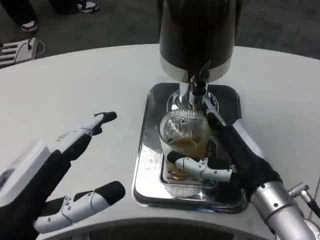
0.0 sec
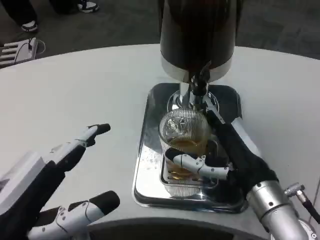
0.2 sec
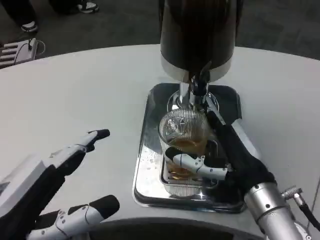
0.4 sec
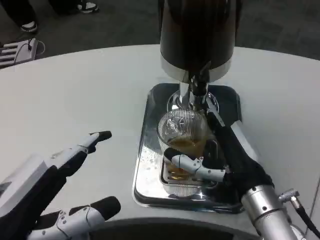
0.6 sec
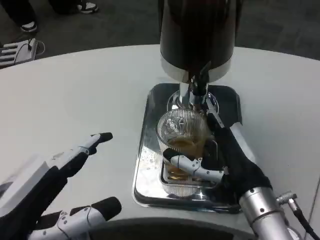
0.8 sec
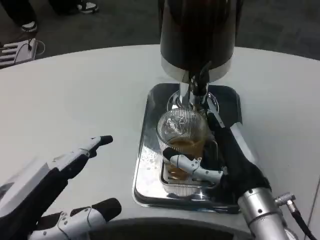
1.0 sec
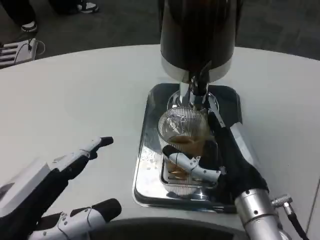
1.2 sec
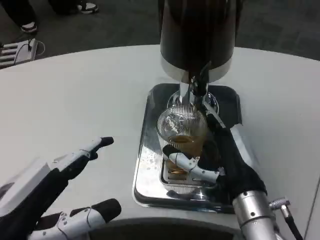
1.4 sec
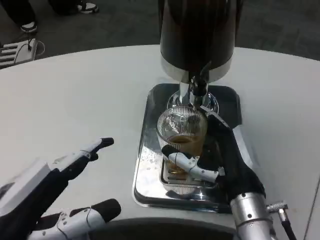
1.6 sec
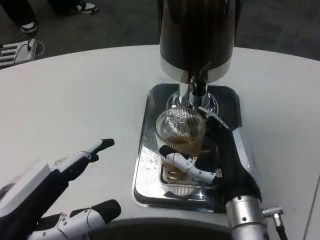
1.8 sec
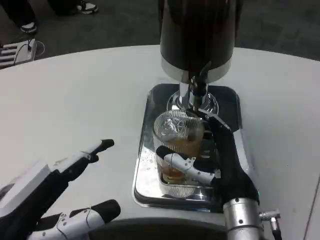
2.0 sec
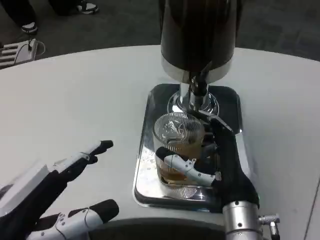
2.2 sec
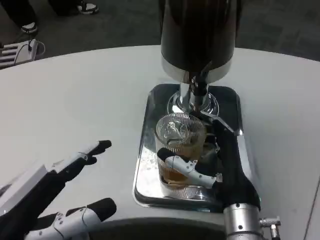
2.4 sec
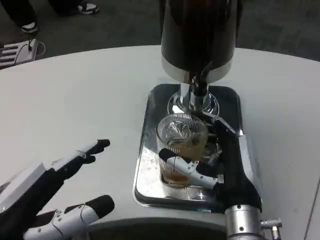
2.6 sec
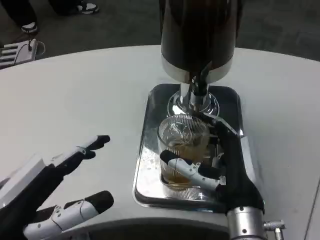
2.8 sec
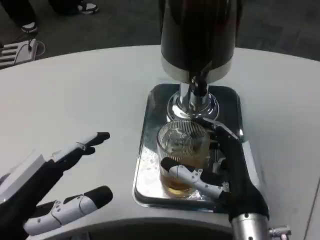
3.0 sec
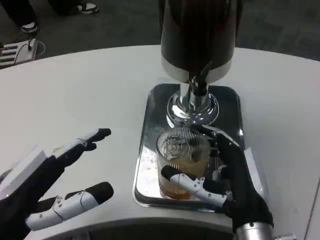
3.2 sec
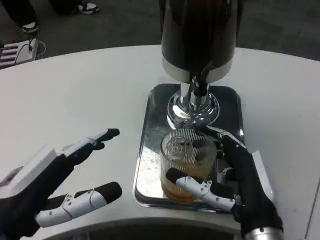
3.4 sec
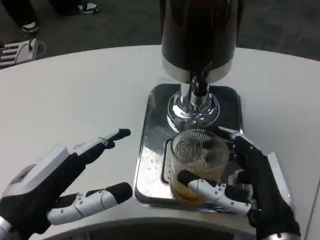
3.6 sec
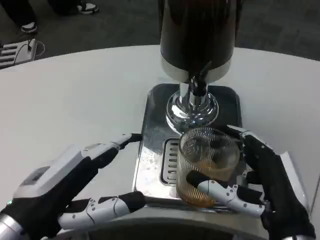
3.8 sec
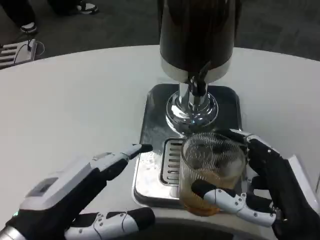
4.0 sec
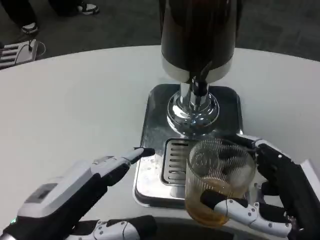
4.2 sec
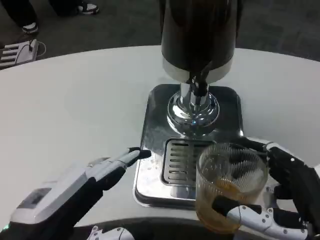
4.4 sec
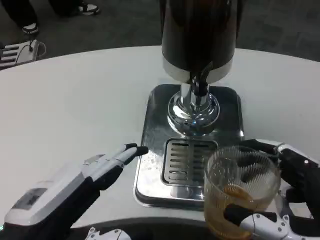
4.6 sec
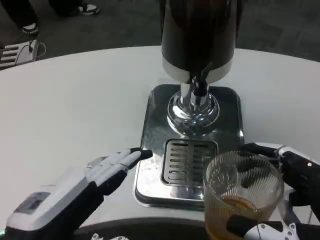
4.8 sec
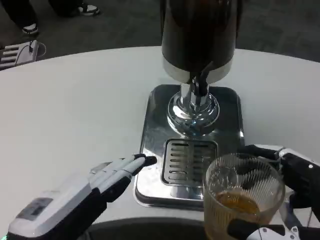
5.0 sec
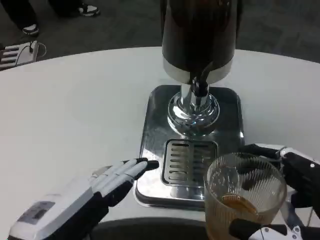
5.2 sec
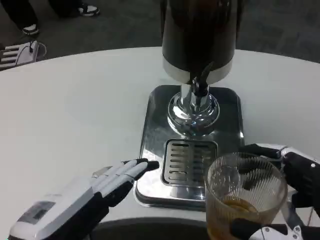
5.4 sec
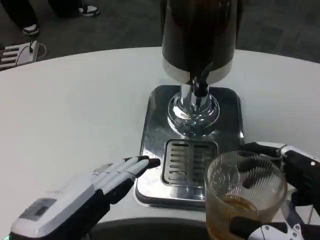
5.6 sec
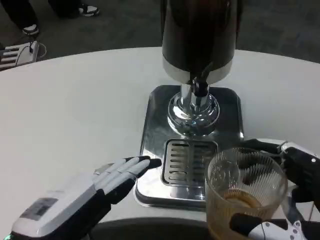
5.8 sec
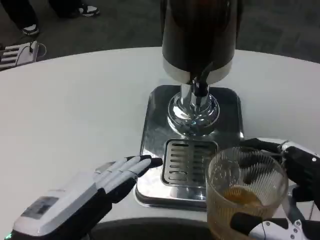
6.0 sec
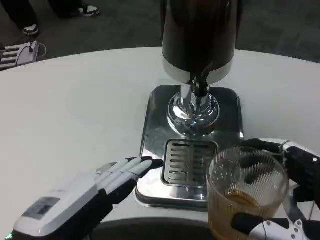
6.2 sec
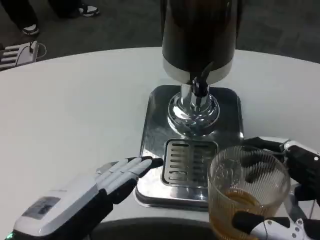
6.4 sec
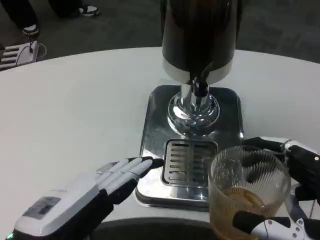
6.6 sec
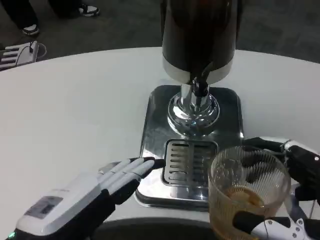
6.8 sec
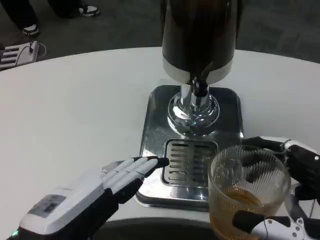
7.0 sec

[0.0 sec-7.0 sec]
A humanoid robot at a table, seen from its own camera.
Task of the whole recording: Grasp the cup under the faucet to collect the drink, then remove the cup.
0.0 sec to 1.4 sec: The hands stay close to where they were, moving slightly.
1.4 sec to 2.8 sec: The hands make only small movements.
2.8 sec to 4.2 sec: The right hand moves backward and to the right, approximately 10 cm.
4.2 sec to 5.6 sec: The right hand ends up roughly 5 cm from where it was.
5.6 sec to 7.0 sec: The two hands keep their place.

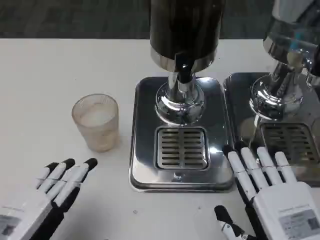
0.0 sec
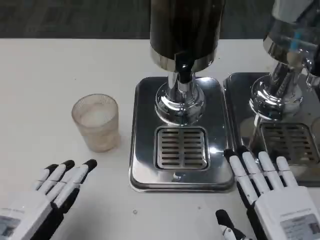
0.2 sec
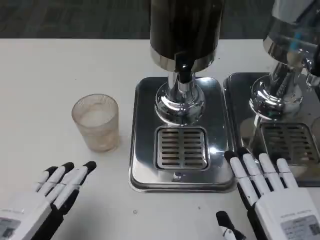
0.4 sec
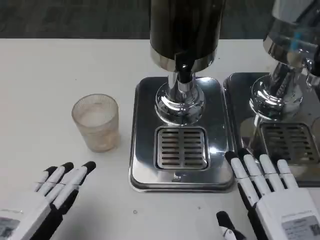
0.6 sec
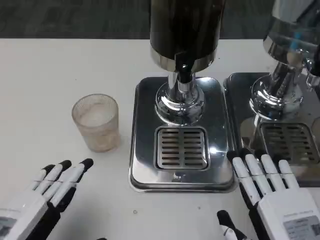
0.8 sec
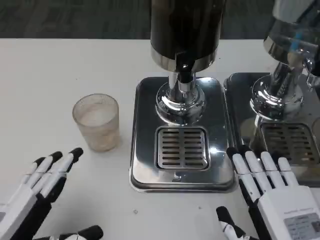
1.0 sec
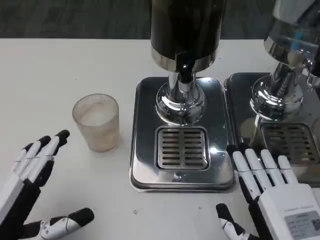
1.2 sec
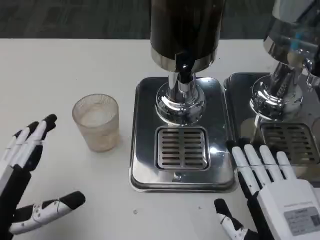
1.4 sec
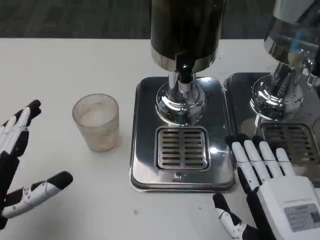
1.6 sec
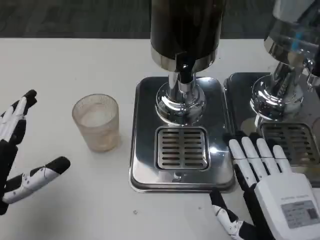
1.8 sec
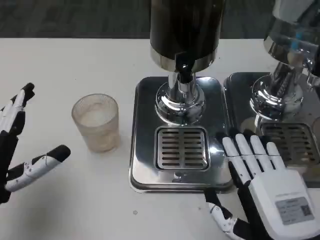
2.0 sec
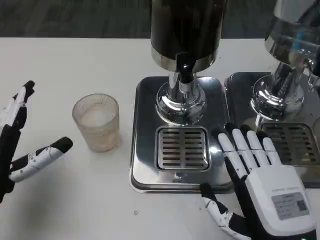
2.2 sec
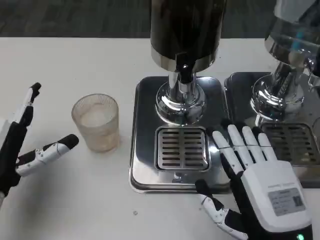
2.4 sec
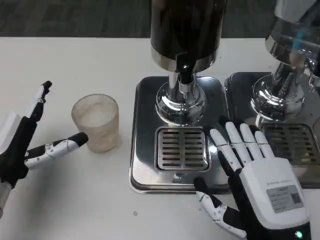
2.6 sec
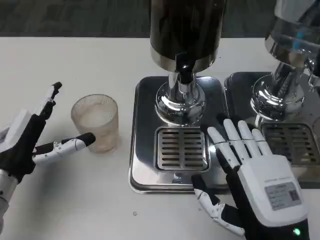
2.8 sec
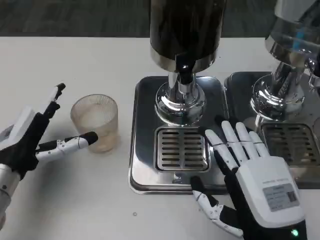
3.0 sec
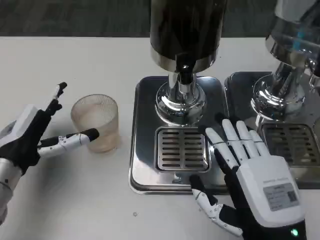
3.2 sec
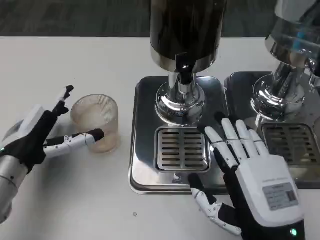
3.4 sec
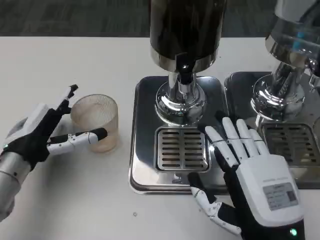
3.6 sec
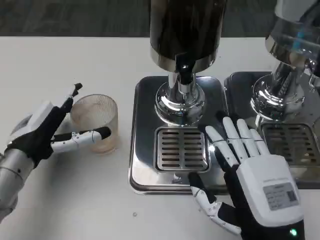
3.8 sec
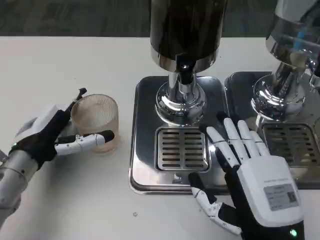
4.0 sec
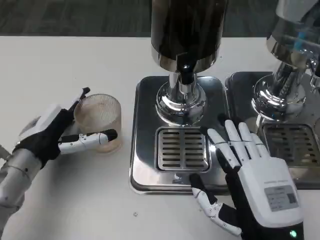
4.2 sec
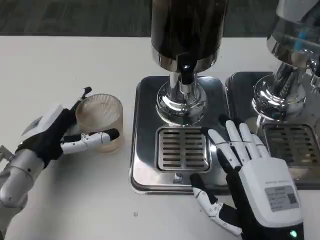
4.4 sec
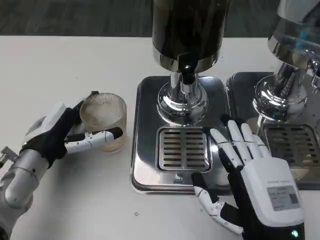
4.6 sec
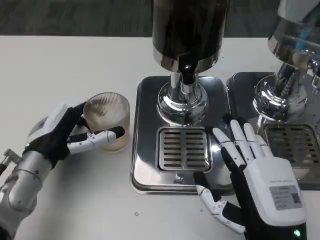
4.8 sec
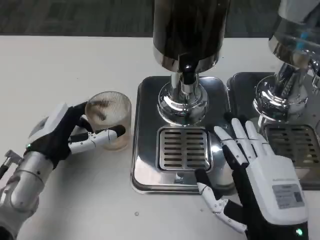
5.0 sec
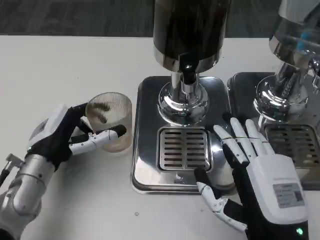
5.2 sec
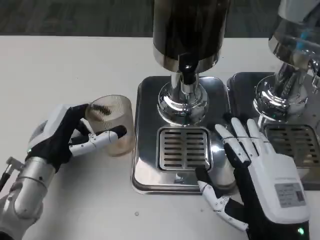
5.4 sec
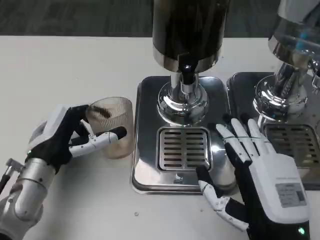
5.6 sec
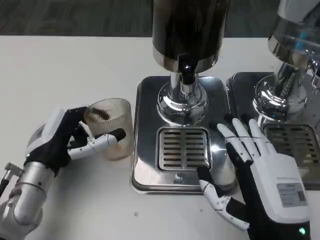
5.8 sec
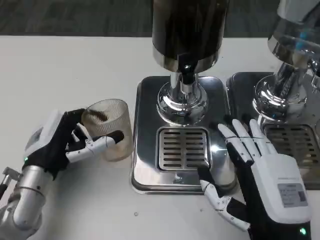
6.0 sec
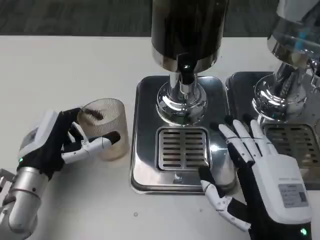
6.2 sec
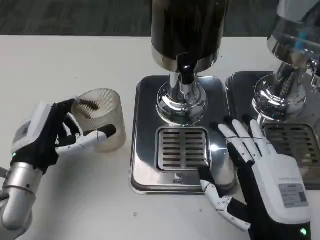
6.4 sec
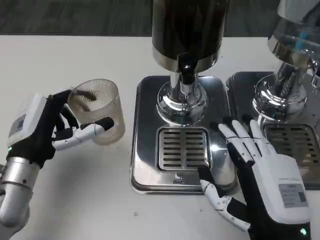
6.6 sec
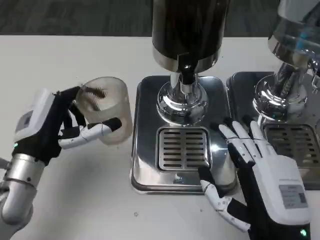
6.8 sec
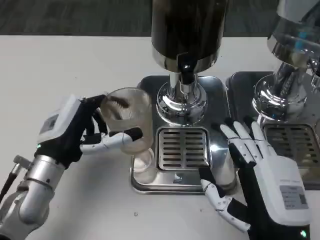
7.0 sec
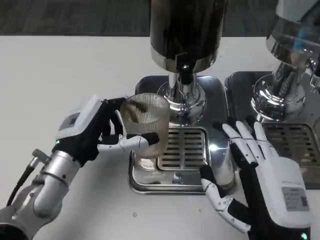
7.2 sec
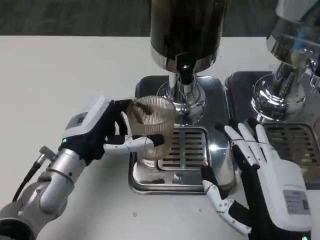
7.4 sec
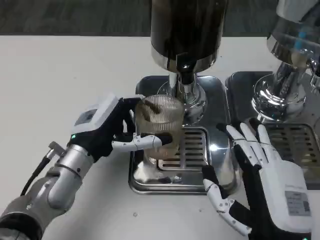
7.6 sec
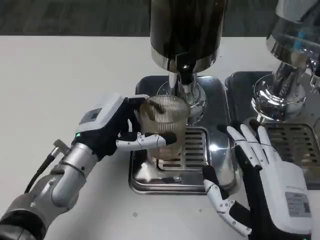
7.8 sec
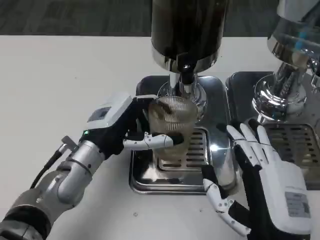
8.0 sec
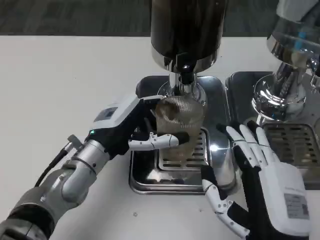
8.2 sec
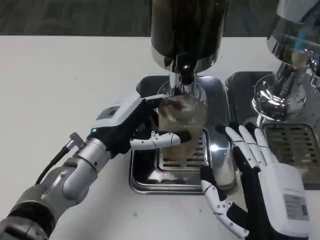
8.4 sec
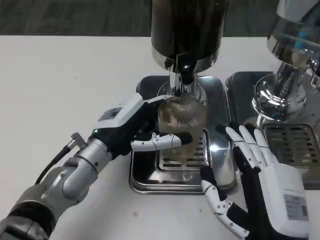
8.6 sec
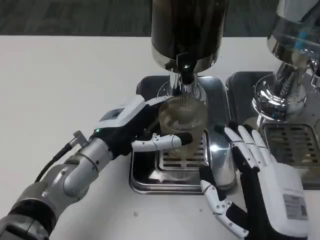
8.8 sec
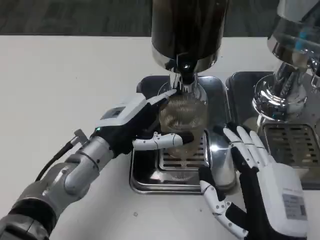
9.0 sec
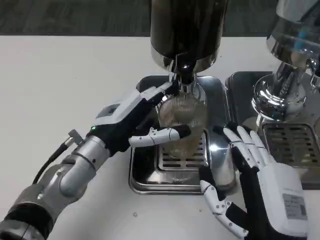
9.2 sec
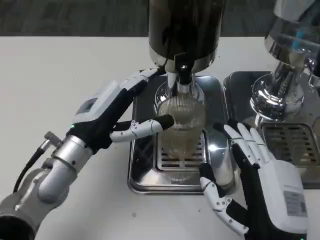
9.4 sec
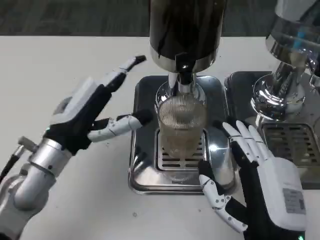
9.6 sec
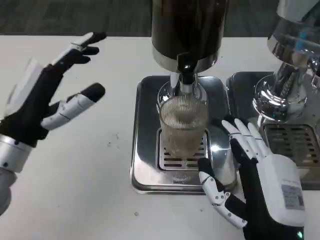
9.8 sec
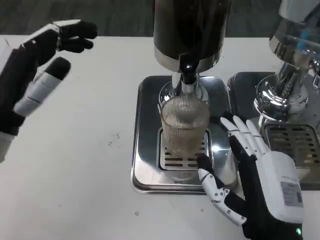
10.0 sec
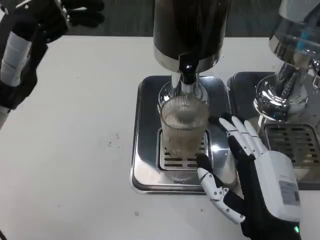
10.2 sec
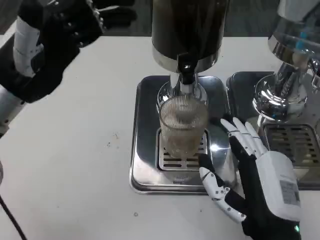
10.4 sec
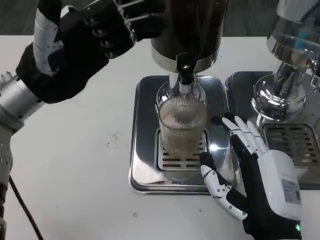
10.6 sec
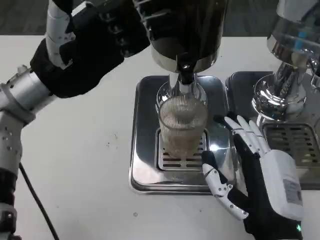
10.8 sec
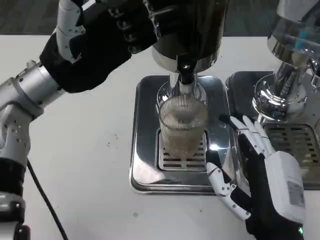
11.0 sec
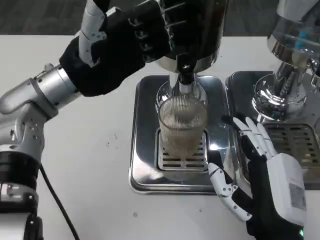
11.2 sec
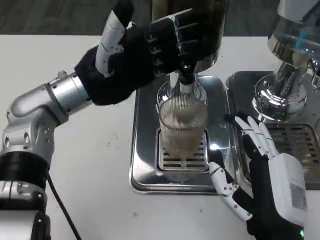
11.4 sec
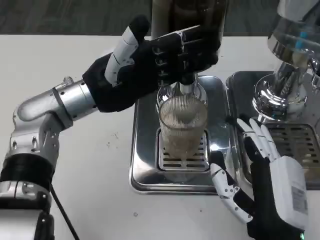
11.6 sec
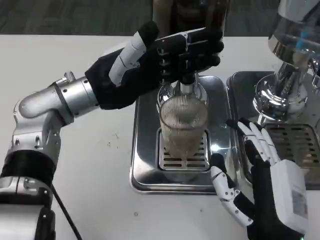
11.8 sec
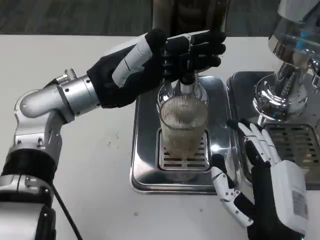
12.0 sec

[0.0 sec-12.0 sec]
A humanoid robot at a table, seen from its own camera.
Task of the whole recording: Grasp the cup under the faucet to collect the drink, then remove the cup.
0.0 sec to 1.6 sec: The left hand moves about 5 cm.
1.6 sec to 3.0 sec: The left hand travels forward by about 10 cm.
3.0 sec to 4.4 sec: There are only small adjustments of the hands.
6.0 sec to 7.6 sec: The left hand moves roughly 5 cm.
9.0 sec to 10.4 sec: The left hand travels upward and to the left by approximately 15 cm.
10.4 sec to 12.0 sec: The left hand travels to the right by roughly 5 cm.

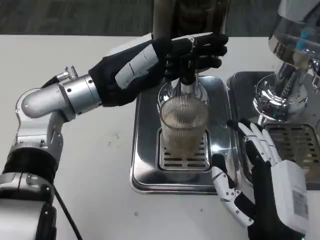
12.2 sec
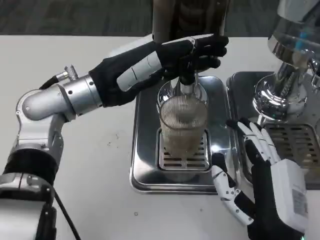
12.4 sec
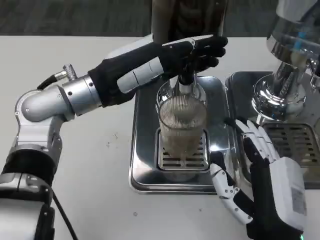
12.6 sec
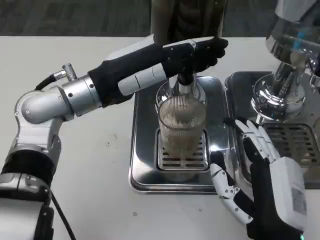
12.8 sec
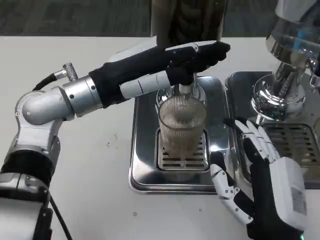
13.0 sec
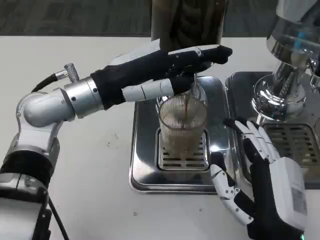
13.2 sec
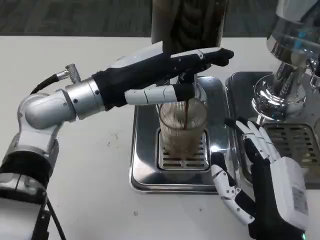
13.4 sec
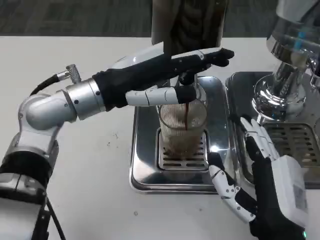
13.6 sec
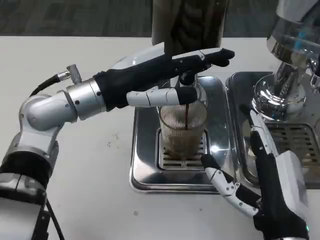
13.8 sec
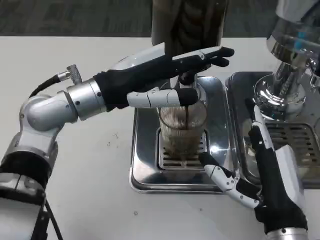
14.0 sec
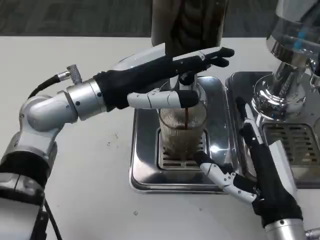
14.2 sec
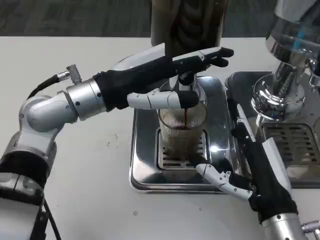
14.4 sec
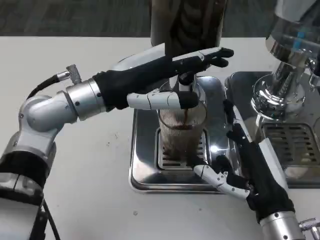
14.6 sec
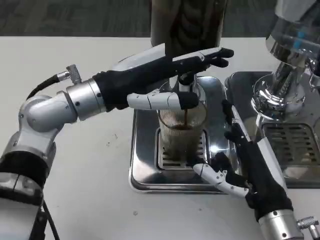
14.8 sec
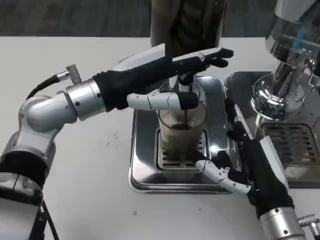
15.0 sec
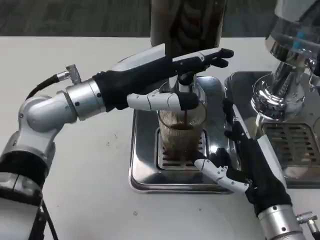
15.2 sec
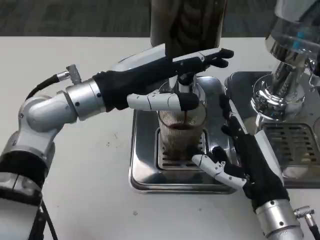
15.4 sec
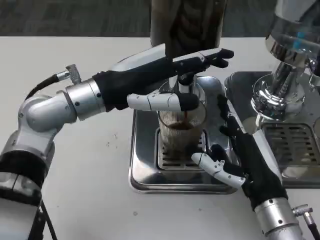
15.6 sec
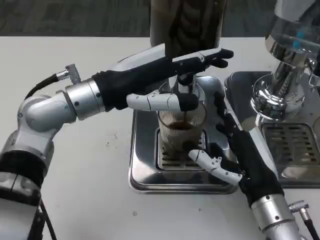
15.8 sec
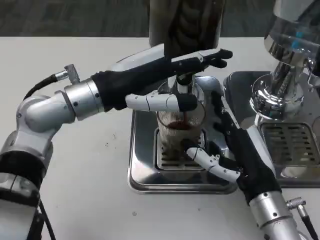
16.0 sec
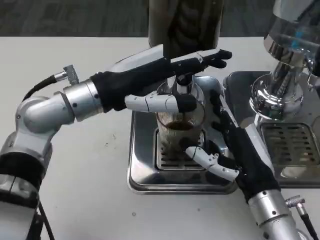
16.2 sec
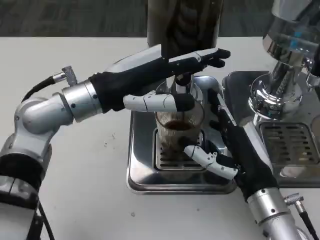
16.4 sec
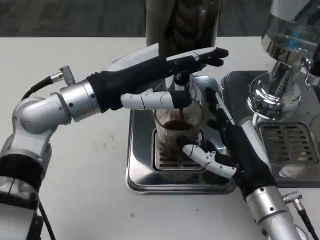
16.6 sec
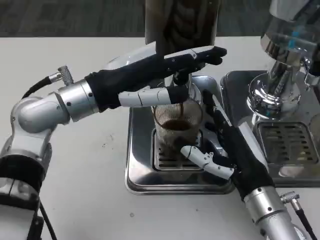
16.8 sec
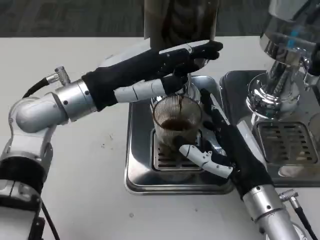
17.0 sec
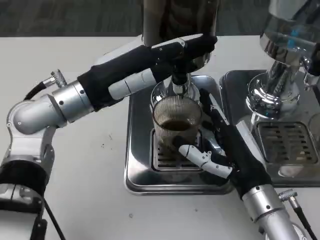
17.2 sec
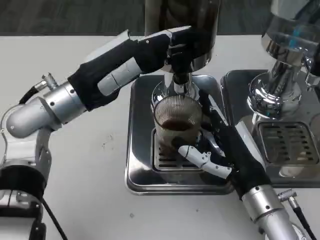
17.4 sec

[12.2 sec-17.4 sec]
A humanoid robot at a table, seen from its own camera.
Task of the whole recording: Grasp the cup under the faucet to collect the drink, then remove the cup.
14.0 sec to 15.6 sec: The hands move only a little.
